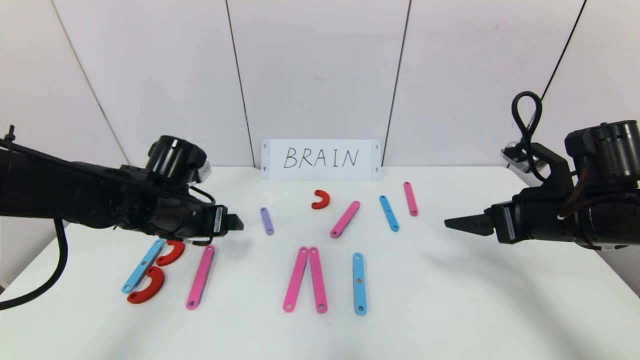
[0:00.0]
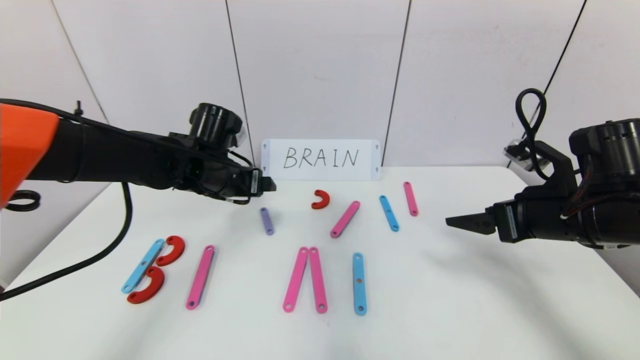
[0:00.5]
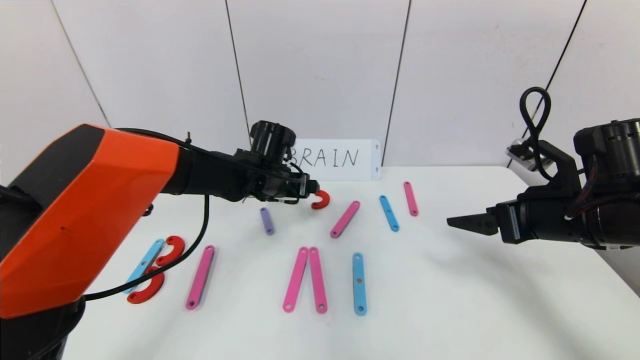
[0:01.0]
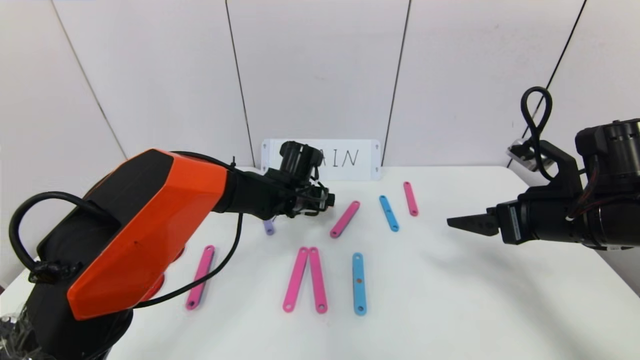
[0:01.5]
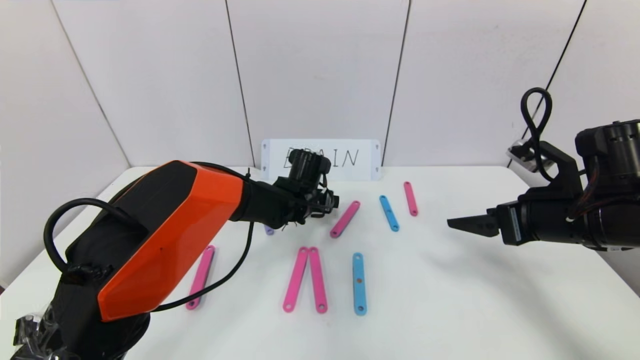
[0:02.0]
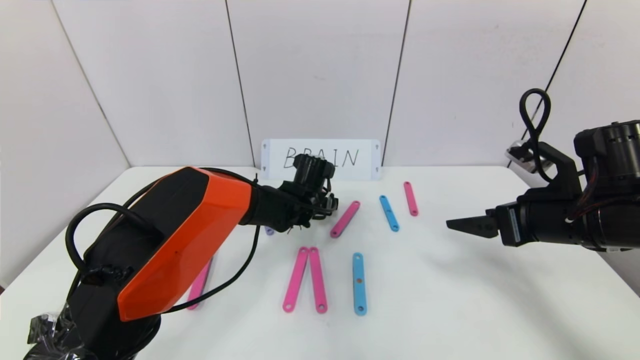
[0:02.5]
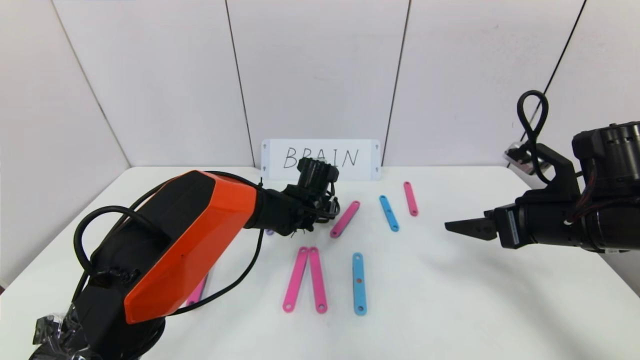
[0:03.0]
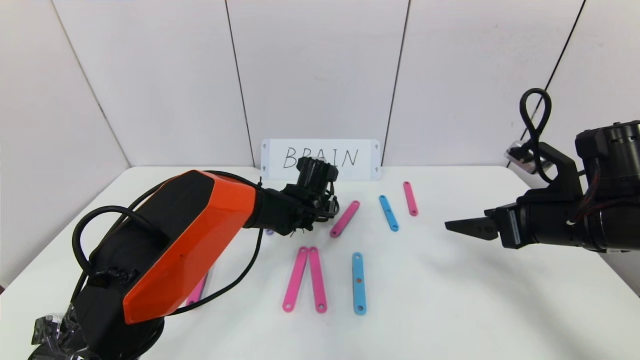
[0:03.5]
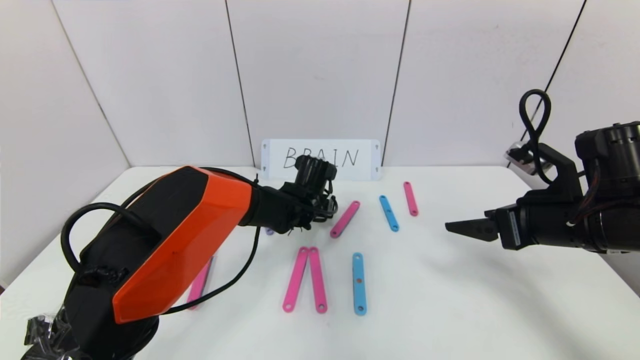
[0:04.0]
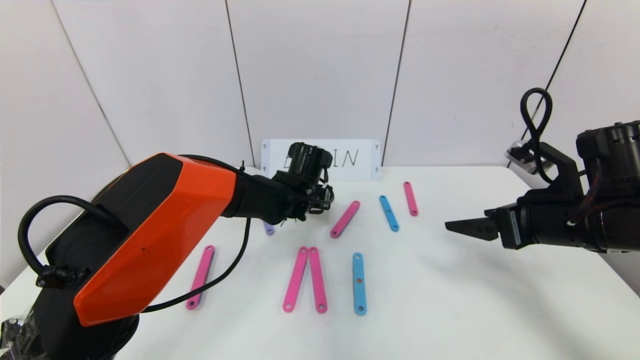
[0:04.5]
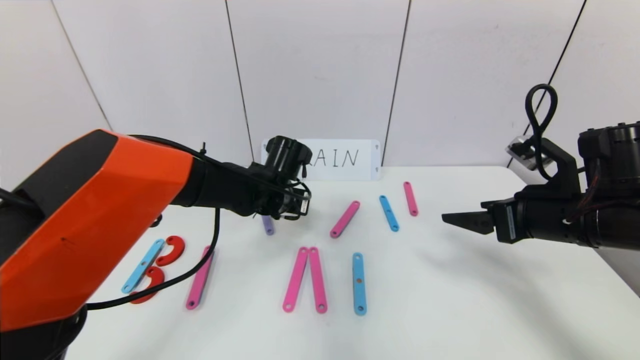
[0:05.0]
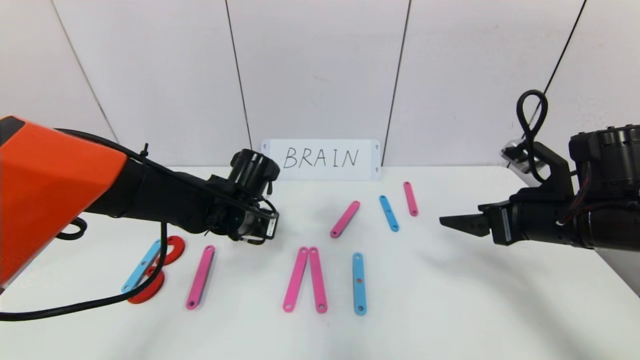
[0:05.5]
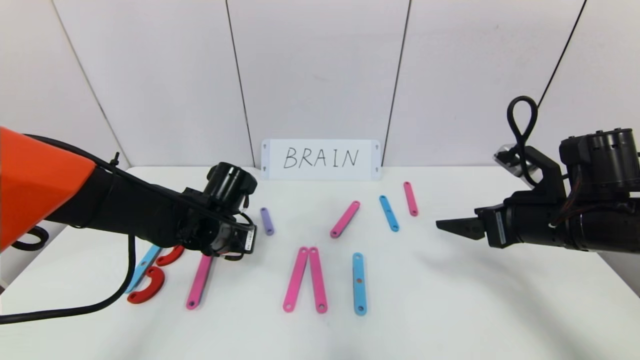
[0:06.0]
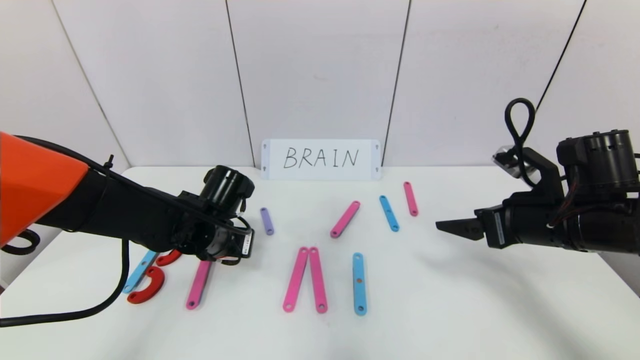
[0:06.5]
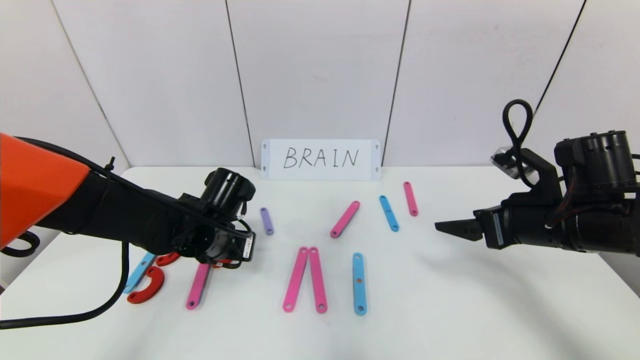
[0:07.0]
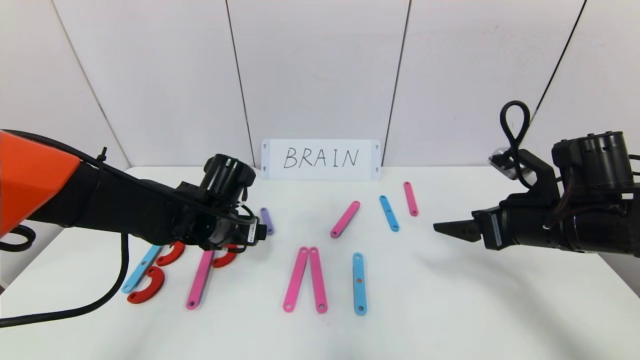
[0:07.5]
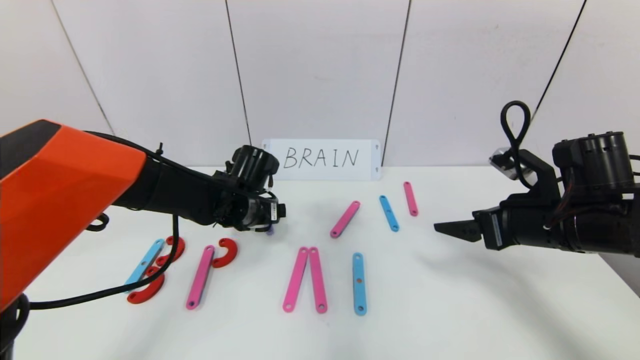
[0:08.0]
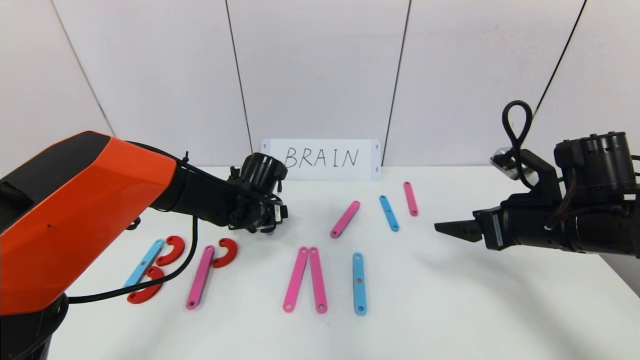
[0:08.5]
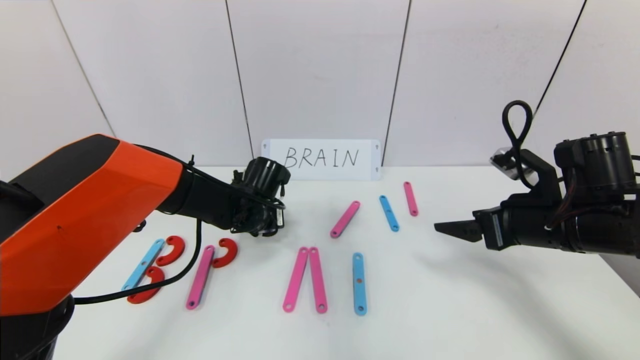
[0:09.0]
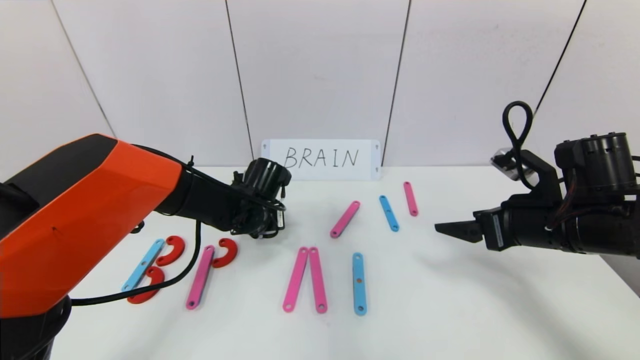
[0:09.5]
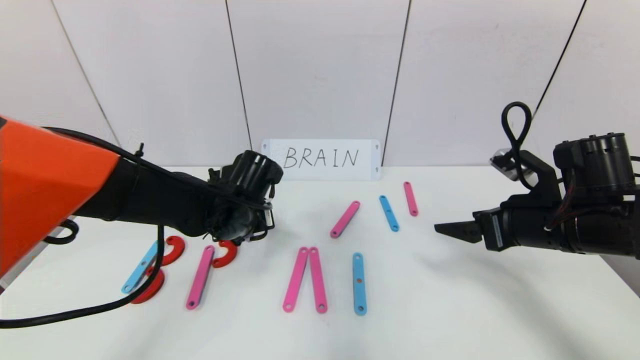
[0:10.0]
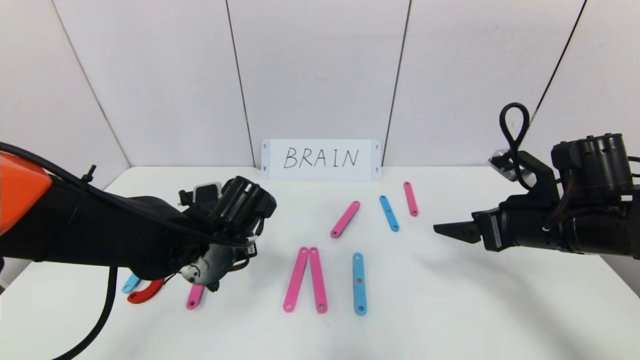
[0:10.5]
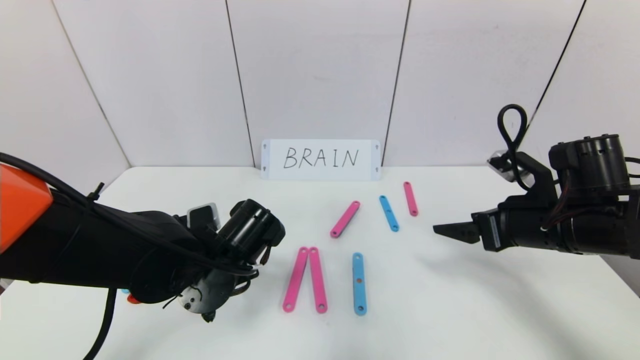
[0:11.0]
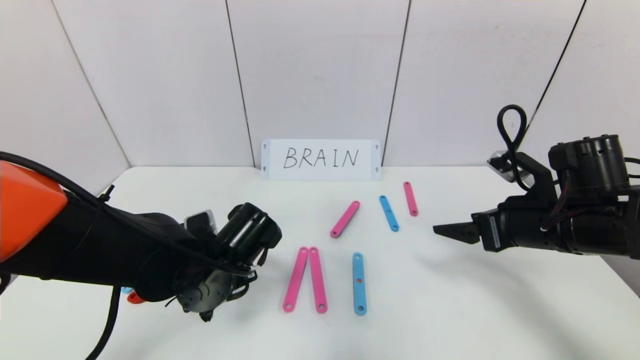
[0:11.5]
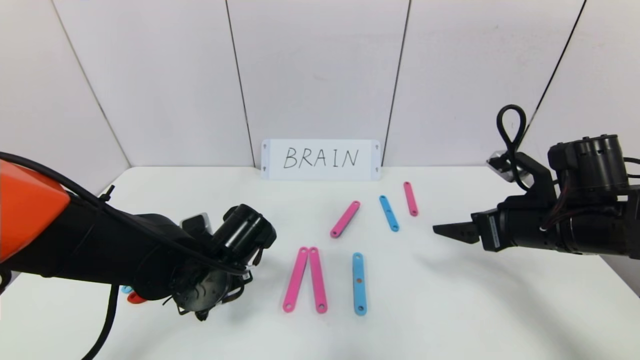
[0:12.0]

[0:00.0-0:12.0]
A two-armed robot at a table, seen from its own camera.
Task of the whole recording: rearrange the word baai as brain.
0:00.0 to 0:02.0: The left gripper shifts roughly 20 cm to the right and forward.
0:02.0 to 0:04.0: The left gripper closes.
0:04.0 to 0:06.0: The left gripper heads to the left and backward, covering approximately 15 cm.
0:06.0 to 0:08.0: The left gripper shifts by some 5 cm, and opens up.
0:08.0 to 0:10.0: The left gripper closes up.
0:10.0 to 0:12.0: The left gripper is displaced backward by approximately 10 cm.

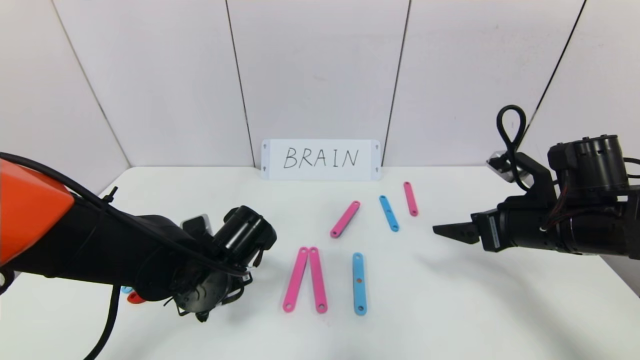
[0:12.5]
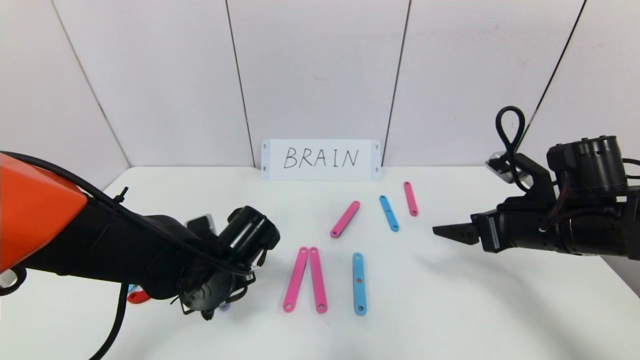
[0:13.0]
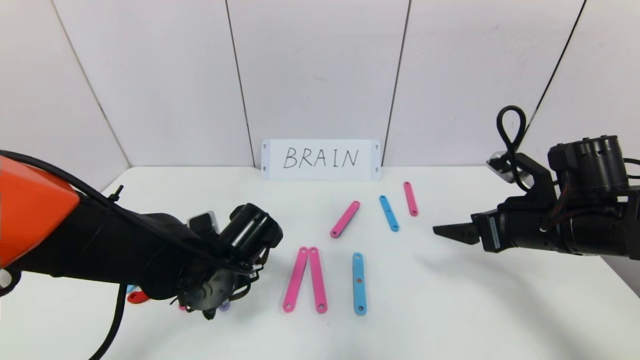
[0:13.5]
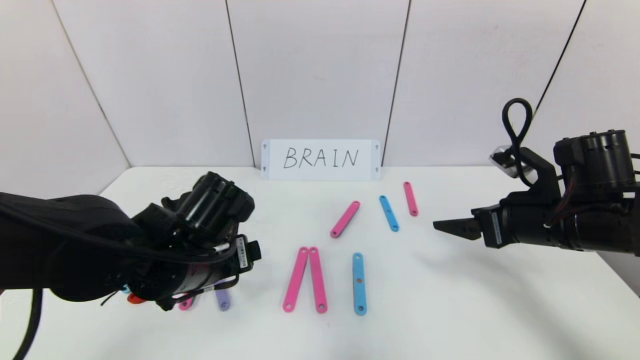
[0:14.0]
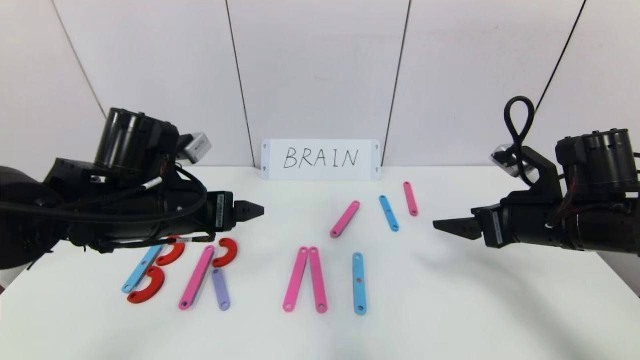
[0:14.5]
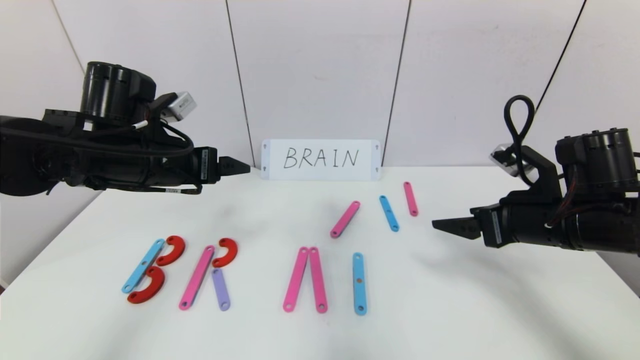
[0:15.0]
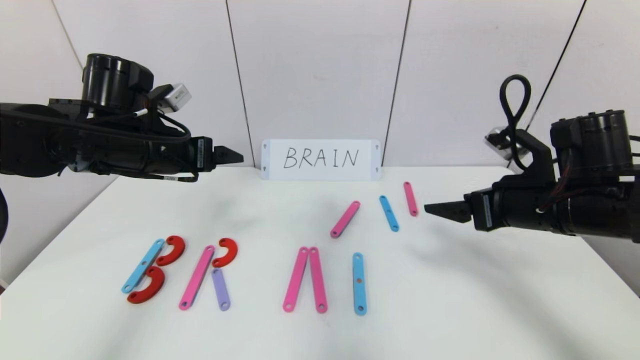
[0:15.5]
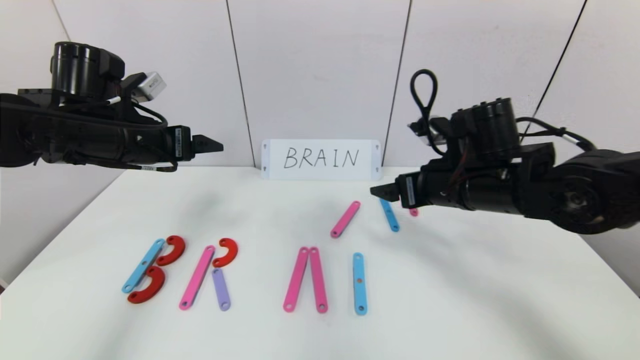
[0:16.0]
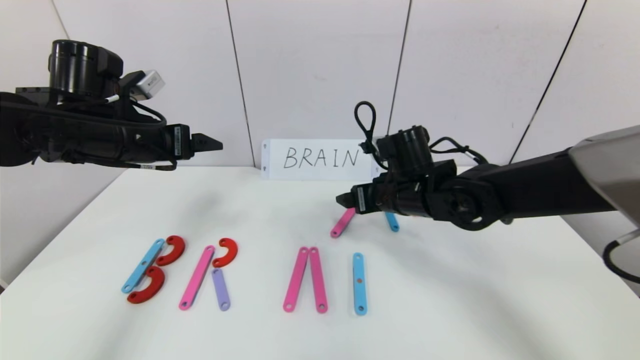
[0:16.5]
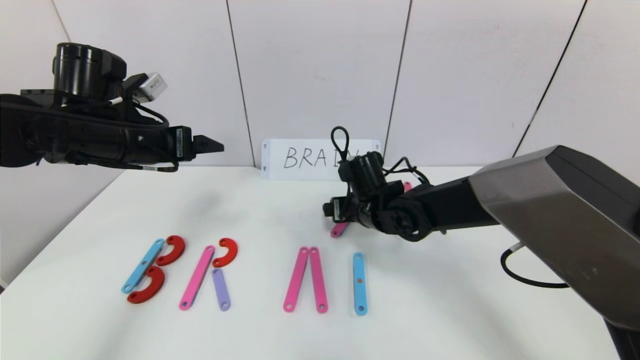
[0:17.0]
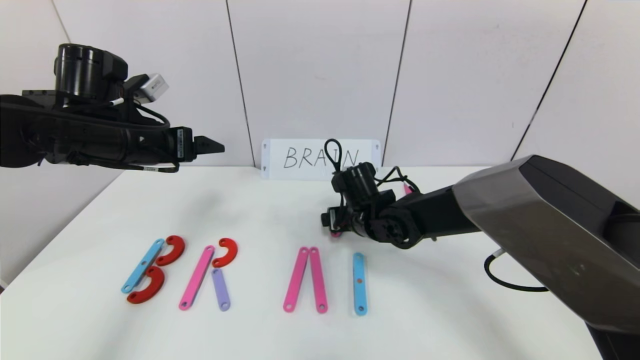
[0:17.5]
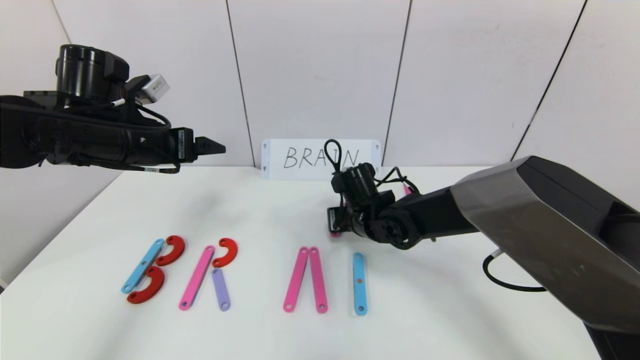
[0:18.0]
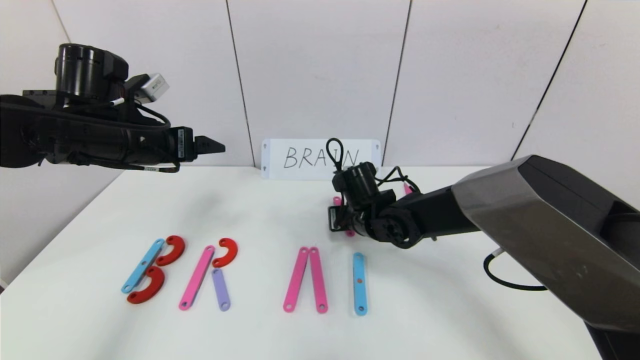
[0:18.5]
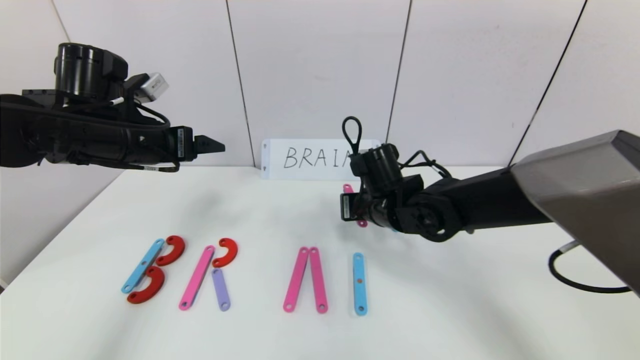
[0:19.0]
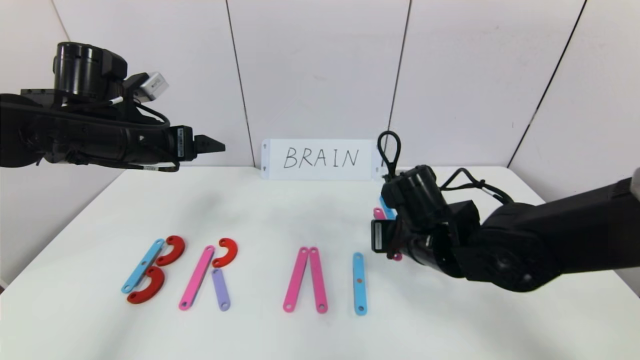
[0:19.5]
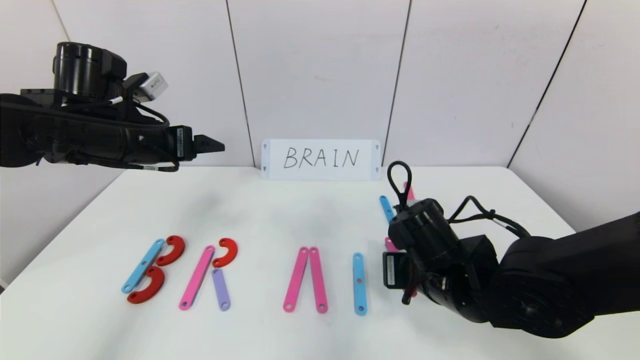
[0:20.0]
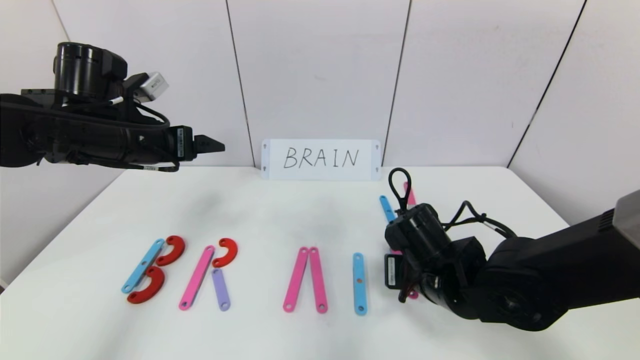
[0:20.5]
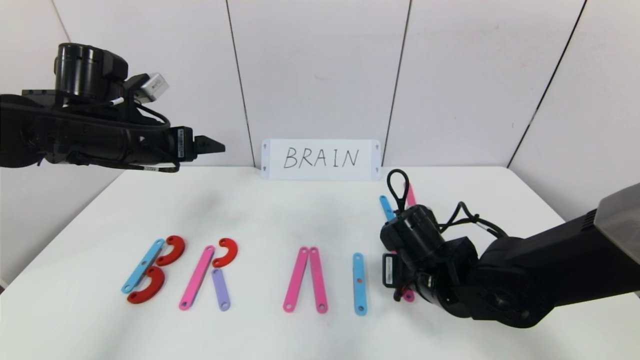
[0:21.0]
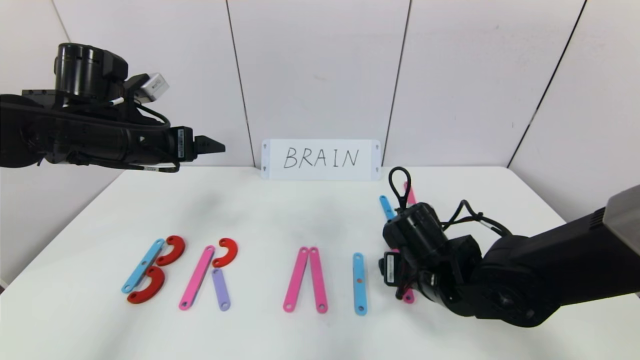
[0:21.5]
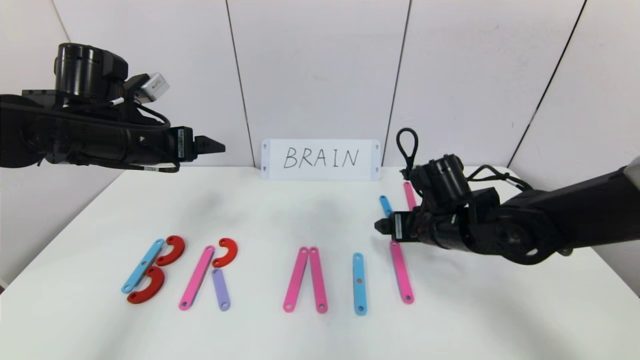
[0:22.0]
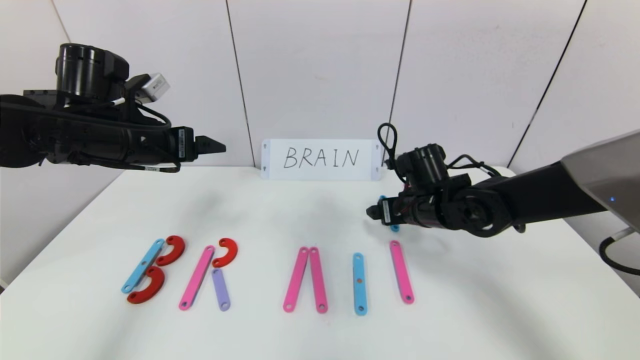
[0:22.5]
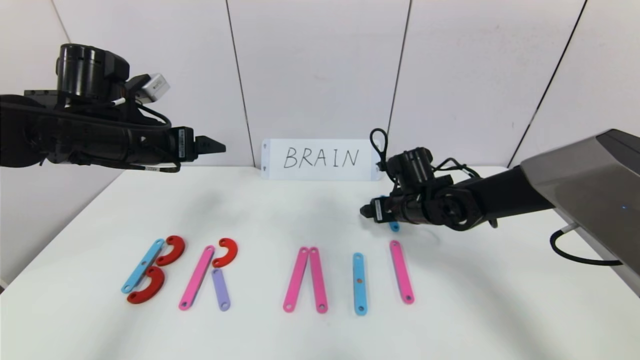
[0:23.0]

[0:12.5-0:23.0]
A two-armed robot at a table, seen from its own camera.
Task of the whole recording: rearrange the word baai as brain.
0:12.5 to 0:14.5: The left gripper heads upward, covering approximately 10 cm, and opens.
0:14.5 to 0:16.5: The left gripper is displaced to the left, forward and upward by roughly 10 cm; the right gripper moves to the left and forward, roughly 20 cm.
0:16.5 to 0:19.0: The right gripper closes its fingers.
0:19.0 to 0:21.0: The right gripper shifts approximately 10 cm backward.
0:21.0 to 0:23.0: The right gripper heads forward, covering roughly 15 cm, and opens.
